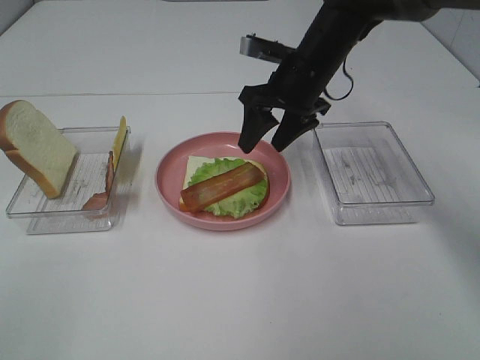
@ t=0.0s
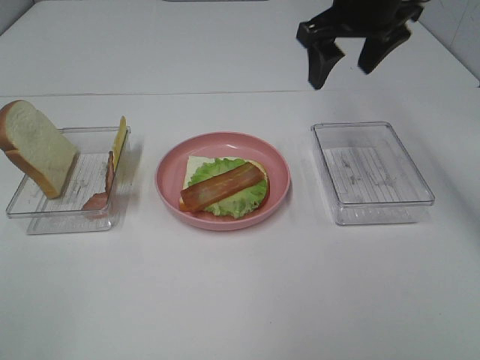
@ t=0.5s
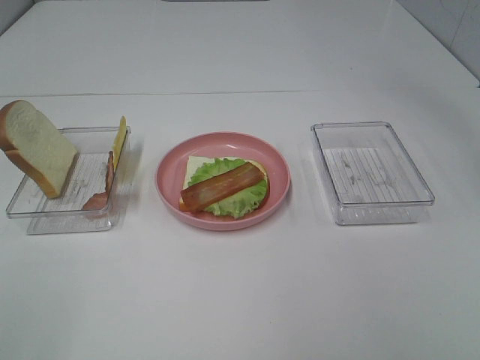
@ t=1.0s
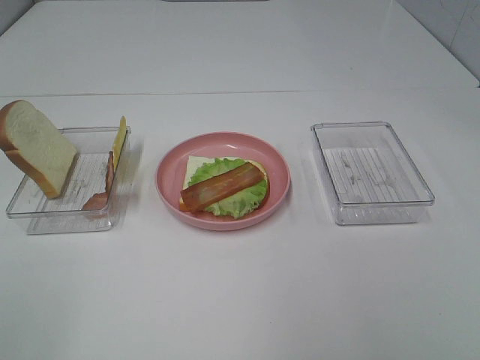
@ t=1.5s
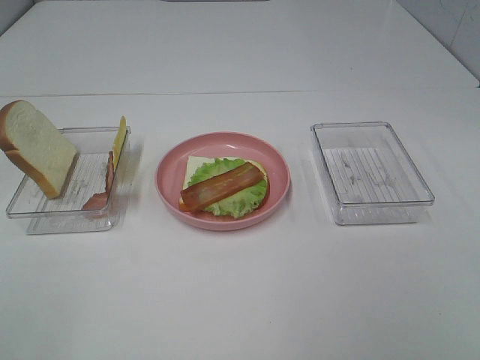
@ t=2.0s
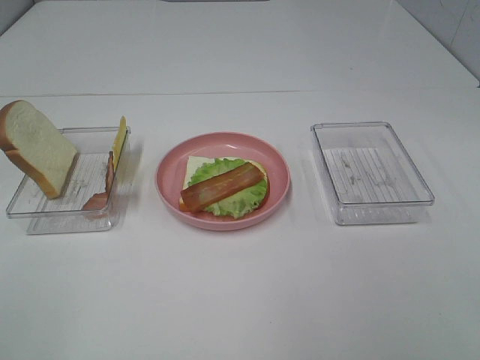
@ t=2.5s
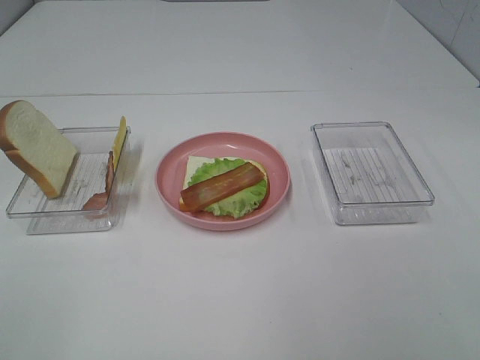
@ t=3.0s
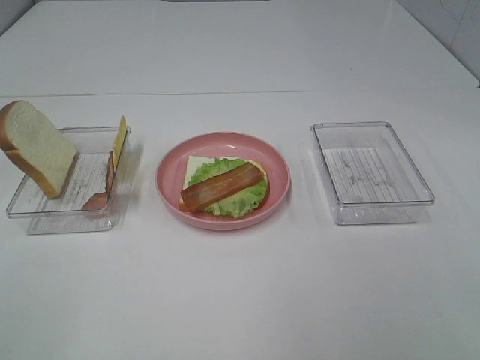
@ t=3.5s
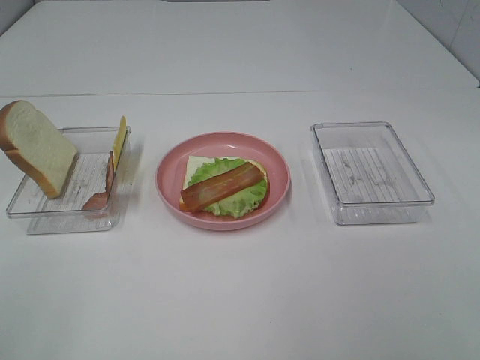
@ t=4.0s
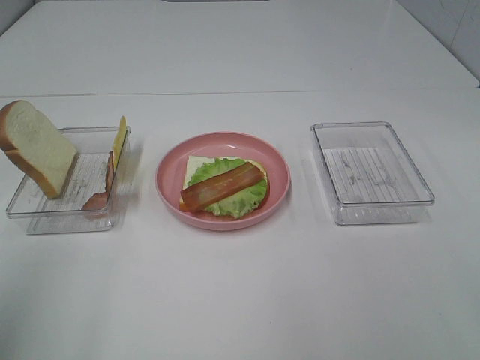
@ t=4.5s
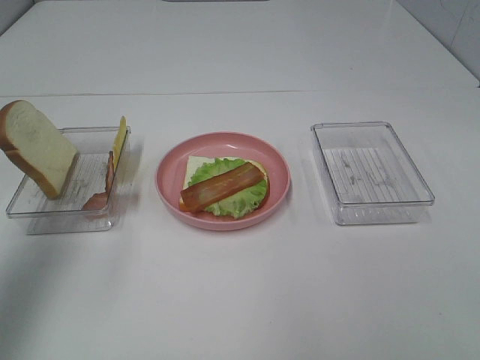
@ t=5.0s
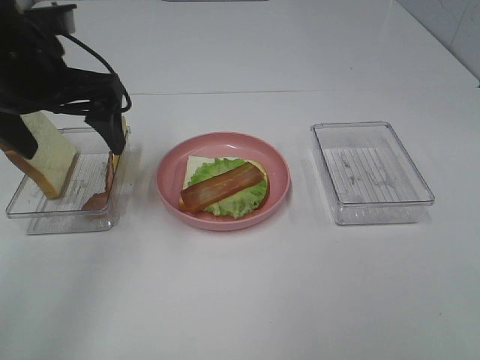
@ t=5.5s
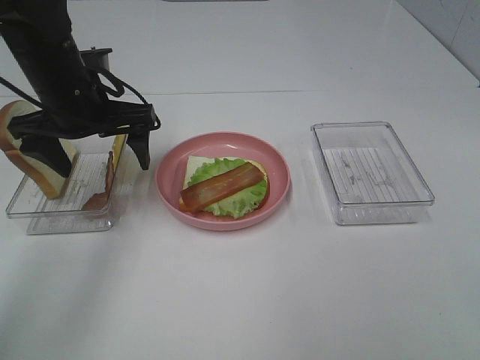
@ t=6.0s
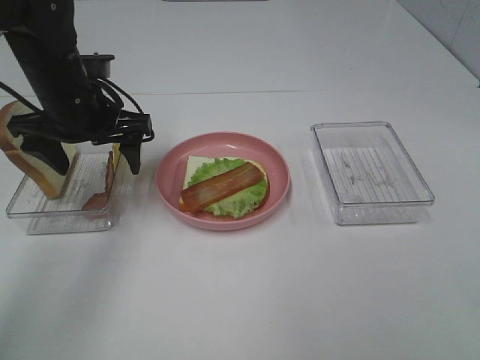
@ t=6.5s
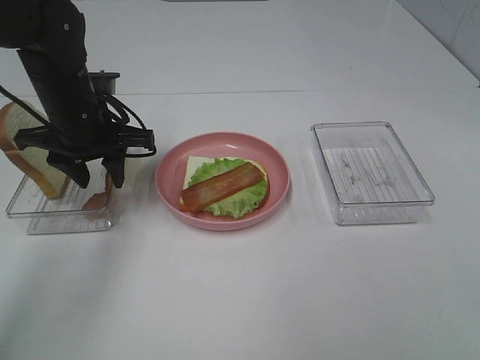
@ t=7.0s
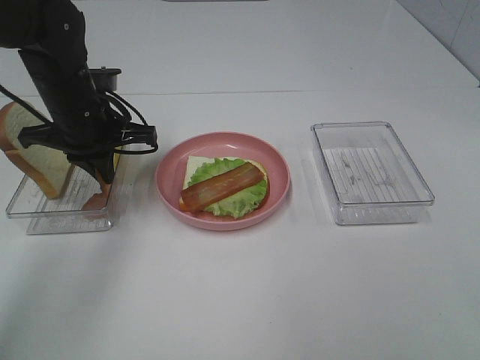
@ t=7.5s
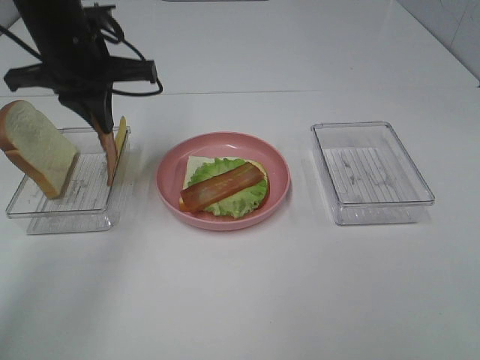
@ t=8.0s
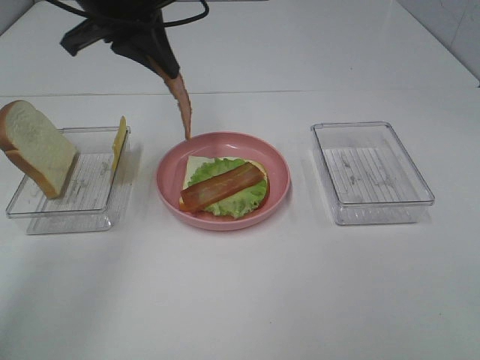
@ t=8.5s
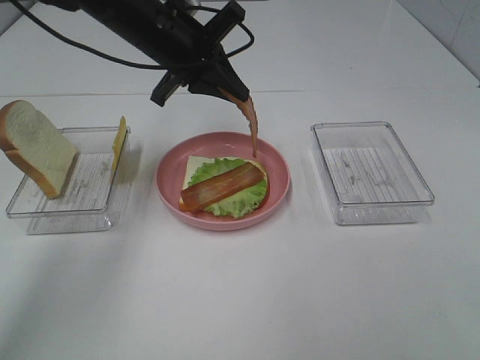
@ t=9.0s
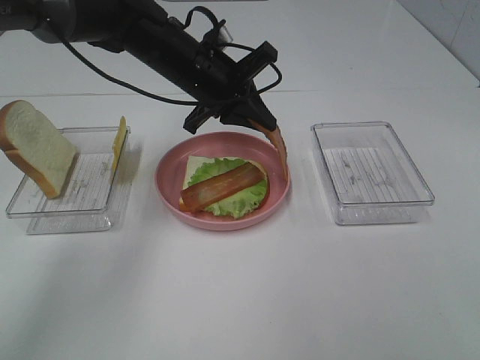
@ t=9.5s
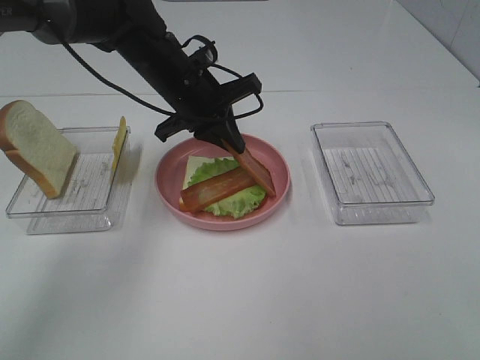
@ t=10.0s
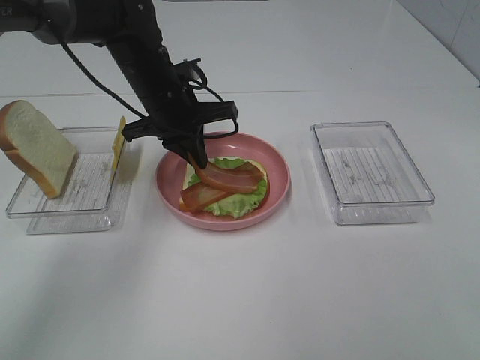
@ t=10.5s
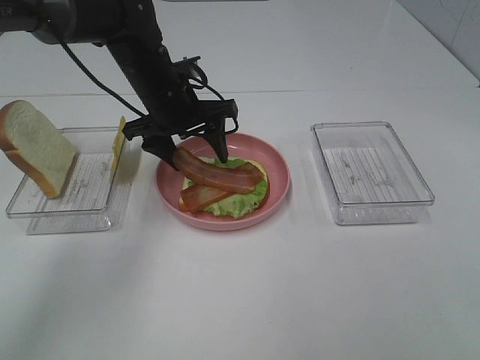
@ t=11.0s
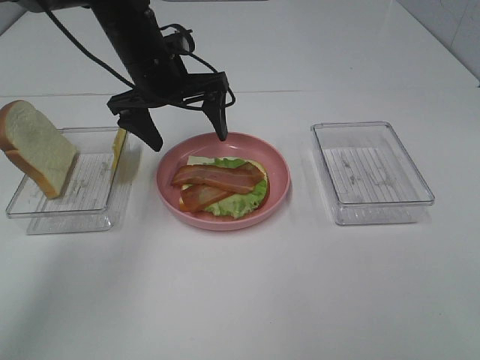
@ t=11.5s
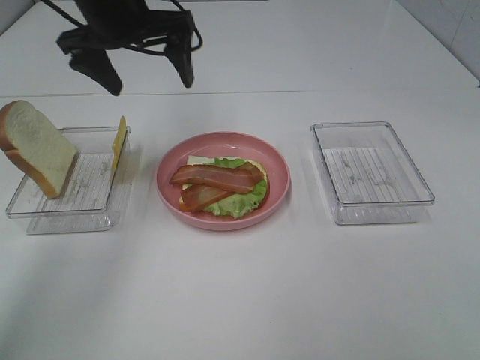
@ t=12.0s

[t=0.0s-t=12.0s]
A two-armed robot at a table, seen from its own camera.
Task of the whole recording: Make sandwiches.
Step, t=0.0s to t=7.0s: Left hand:grab the bacon.
t=0.0s to t=2.0s: The right gripper travels backward and to the right by some 50 cm.
t=4.0s to t=6.0s: The left gripper travels forward by roughly 35 cm.
t=6.0s to t=8.0s: The left gripper shifts some 5 cm upward, and closes up.
t=8.0s to t=10.0s: The left gripper goes roughly 15 cm to the right and downward.
t=10.0s to t=12.0s: The left gripper is displaced upward and to the left by approximately 15 cm, and opens.

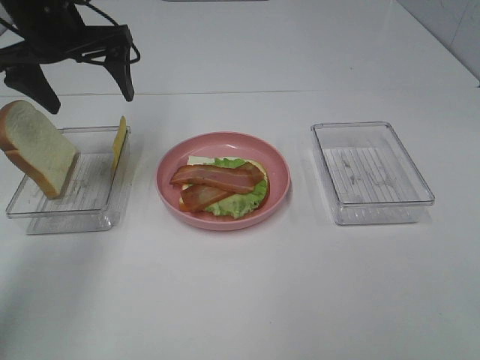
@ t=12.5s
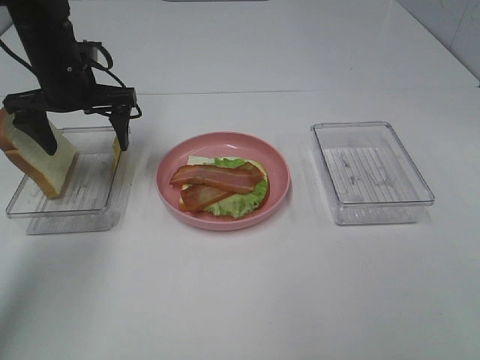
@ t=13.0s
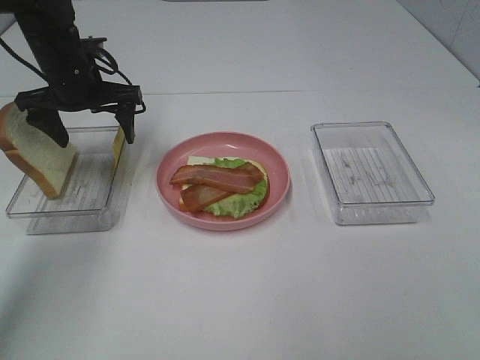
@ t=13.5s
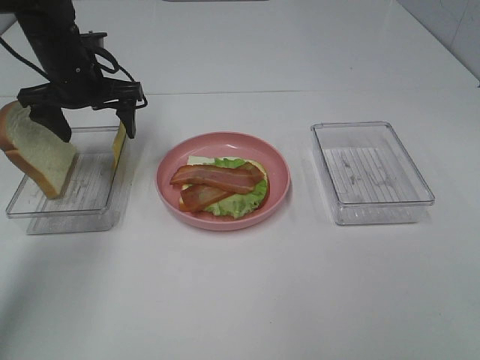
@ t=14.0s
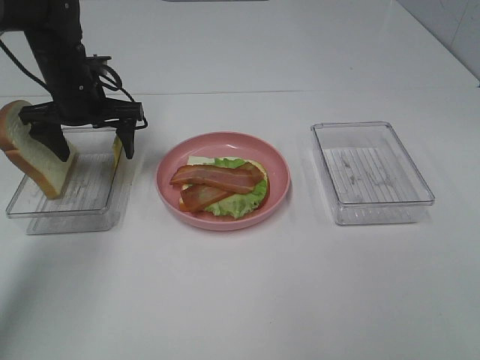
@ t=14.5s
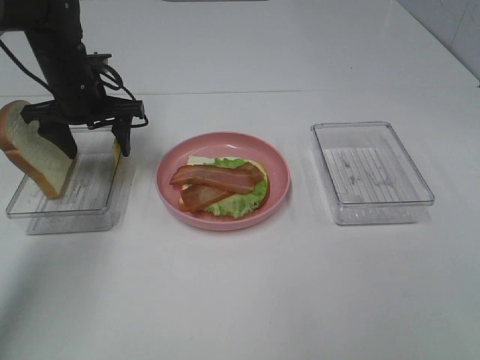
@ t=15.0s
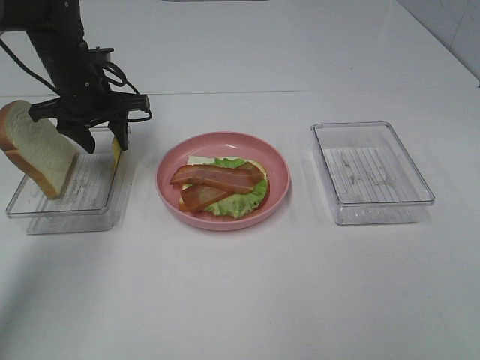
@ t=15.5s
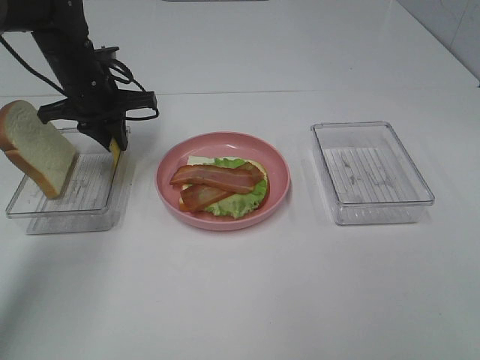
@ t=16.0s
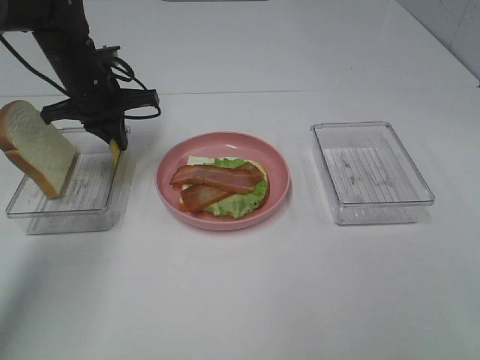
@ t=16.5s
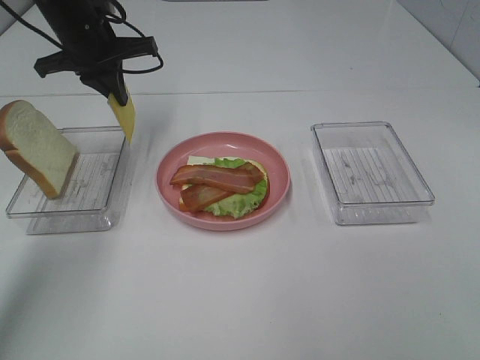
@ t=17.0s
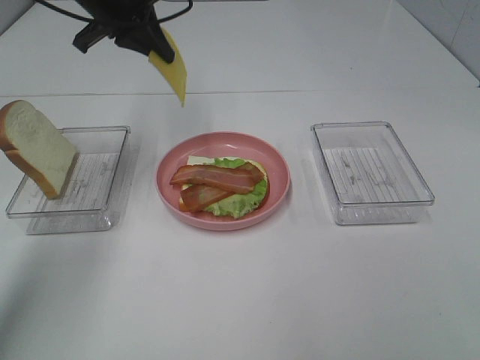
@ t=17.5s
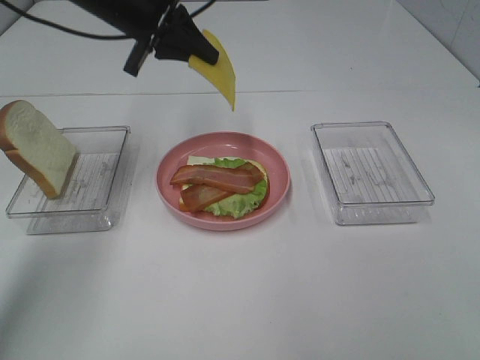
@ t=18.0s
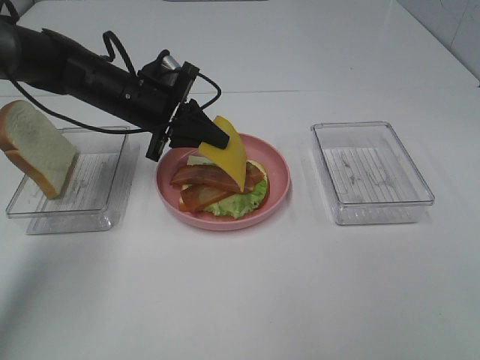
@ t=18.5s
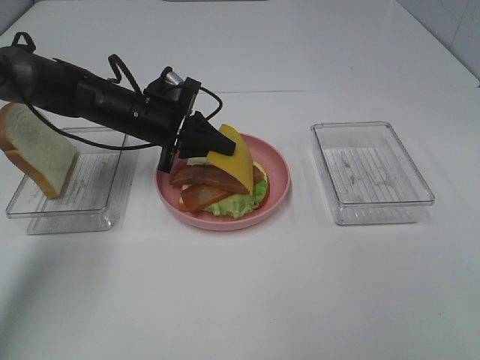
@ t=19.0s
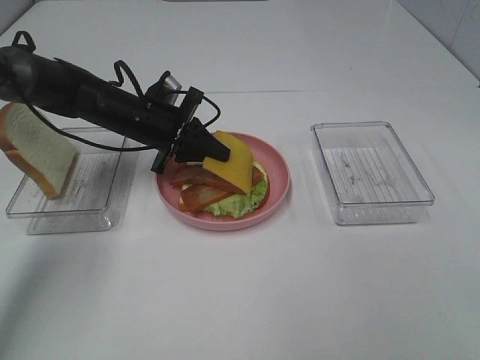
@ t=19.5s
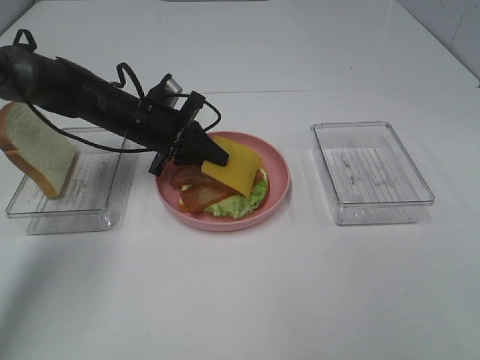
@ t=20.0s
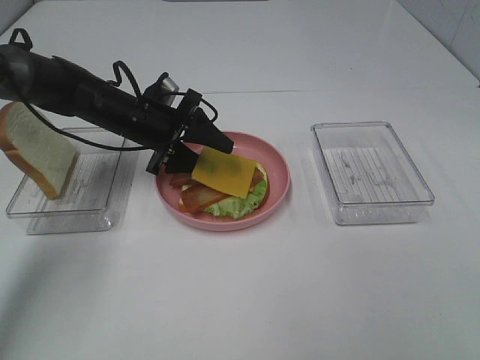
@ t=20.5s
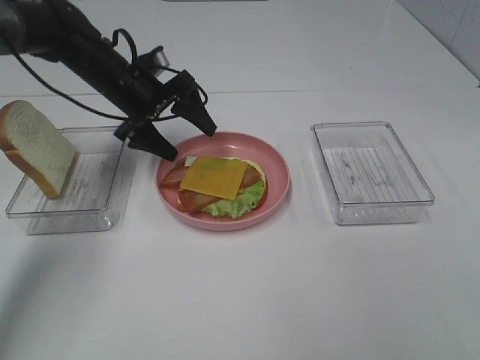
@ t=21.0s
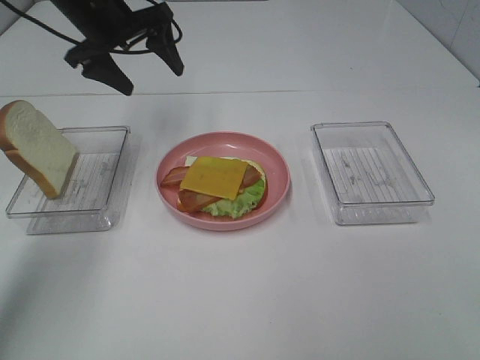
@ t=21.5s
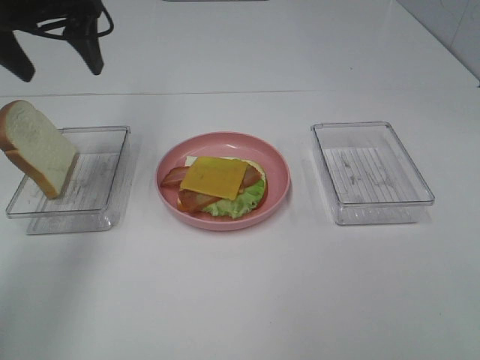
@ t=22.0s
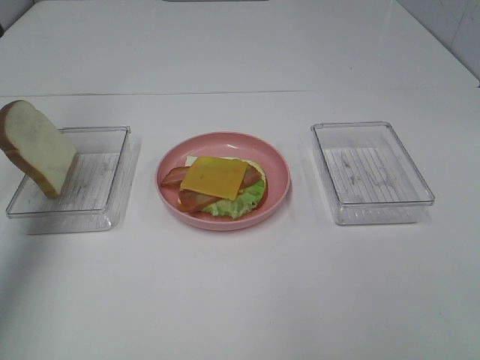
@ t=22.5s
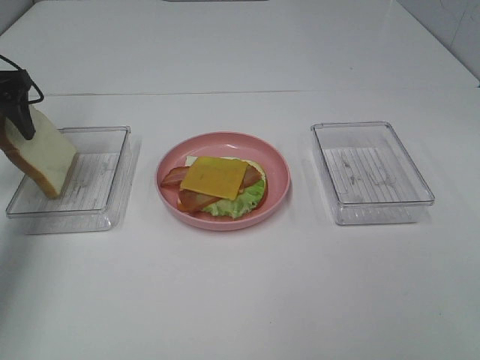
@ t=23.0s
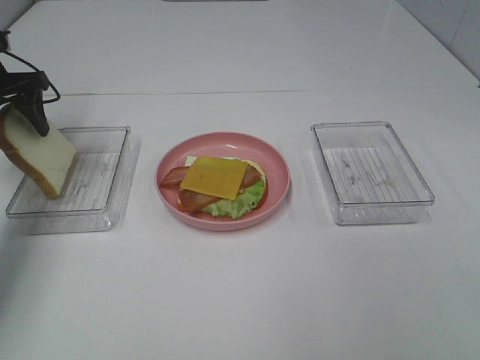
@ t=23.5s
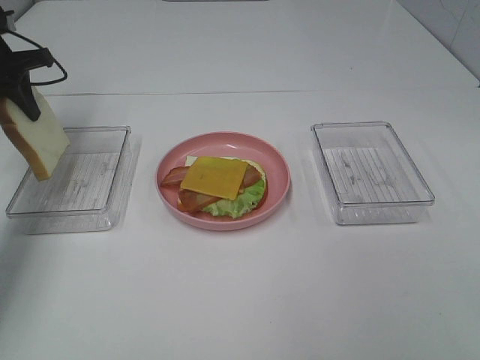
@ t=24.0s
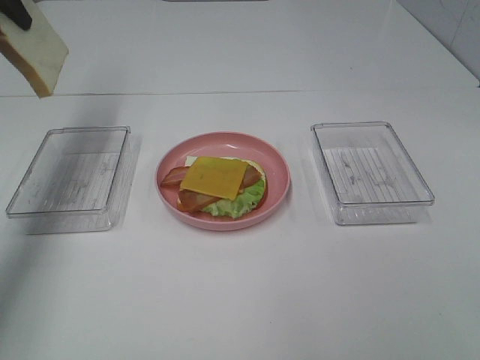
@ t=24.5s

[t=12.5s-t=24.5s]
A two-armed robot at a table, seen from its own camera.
Task of the whole recording: Make sandwiches.
Step, t=12.5s to t=16.5s: Left hand:grab the cheese slice.
Step, t=17.0s to t=21.0s: Left hand:place the cheese slice on top of the bacon.
Step, t=21.5s to t=23.5s: Left hand:grab the bread slice.
t=12.5s to t=14.5s: The left gripper shifts some 10 cm downward.
t=14.5s to t=16.5s: The left gripper closes.
t=16.5s to t=18.5s: The left gripper goes about 5 cm to the right, and moves approximately 10 cm upward and comes back.
t=18.5s to t=20.5s: The left gripper opens up.
t=20.5s to t=22.5s: The left gripper is displaced upward and to the left by roughly 30 cm.
t=22.5s to t=24.5s: The left gripper shifts about 5 cm forward, goes downward and returns, about 15 cm each way, and closes its fingers.

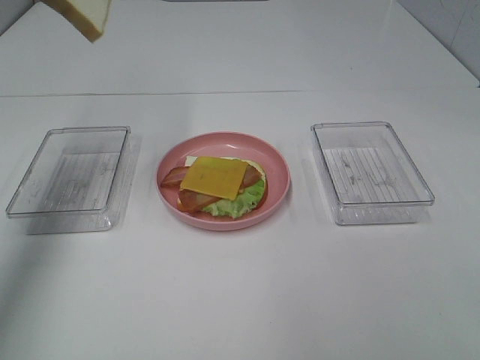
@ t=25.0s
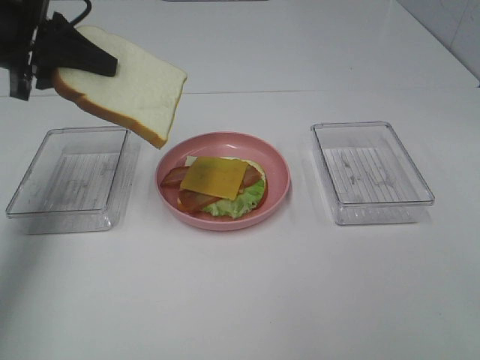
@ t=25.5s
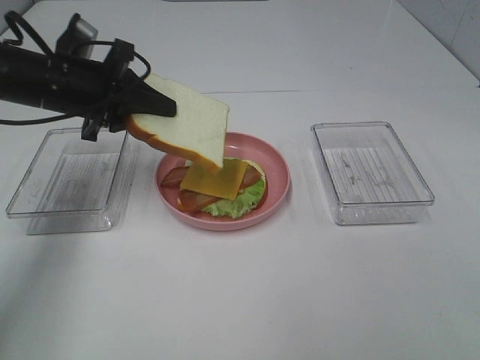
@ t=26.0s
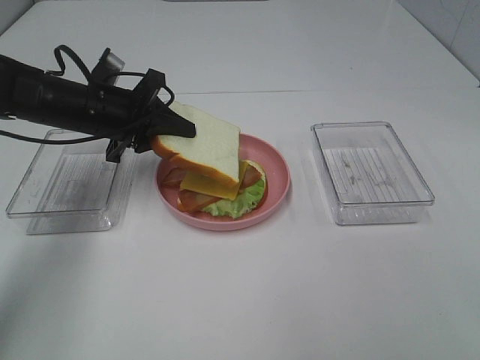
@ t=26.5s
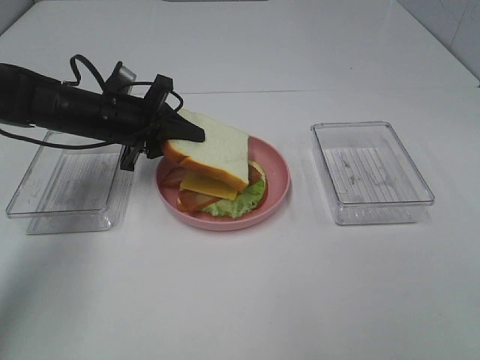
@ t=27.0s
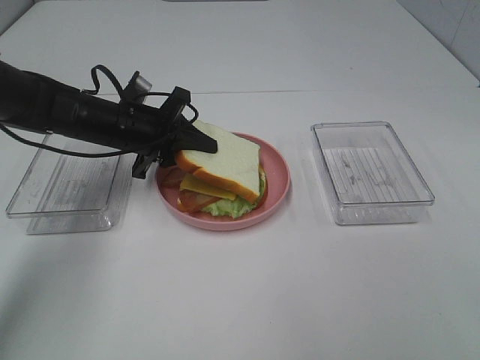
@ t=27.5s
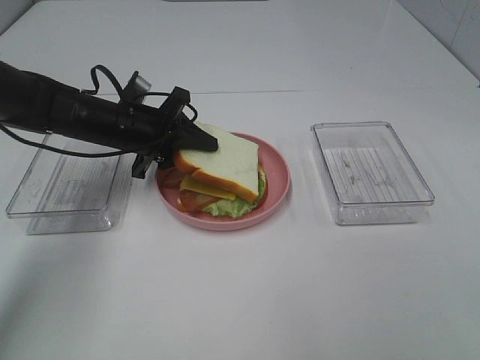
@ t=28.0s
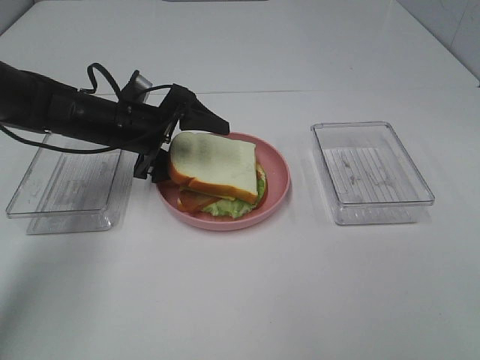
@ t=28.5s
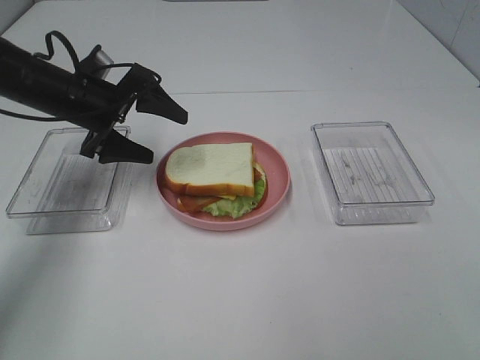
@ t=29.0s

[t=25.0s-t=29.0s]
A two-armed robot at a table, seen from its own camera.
Task of the whole recording: Make sandwiches.
Step, t=25.0s to t=28.5s: Left hand:place the bread slice on the cheese slice.
t=25.0s to t=27.0s: The left gripper shifts some 25 cm downward.
t=27.0s to t=29.0s: The left gripper opens.
